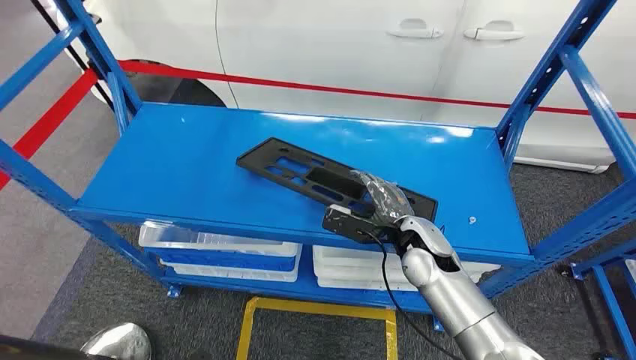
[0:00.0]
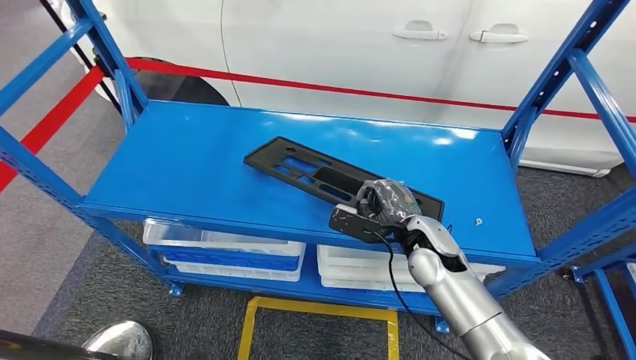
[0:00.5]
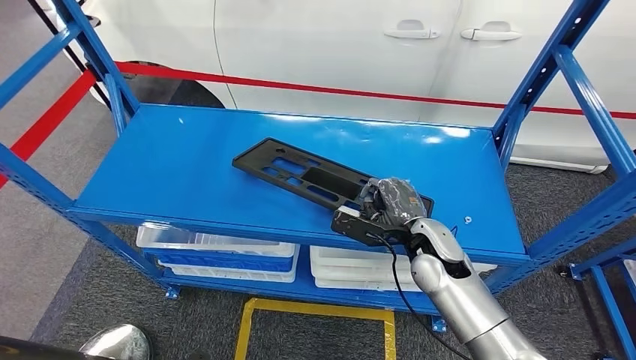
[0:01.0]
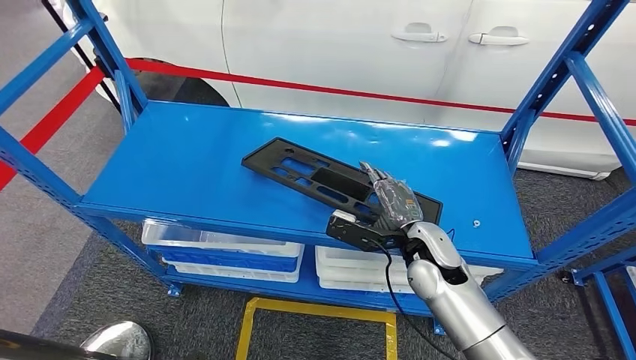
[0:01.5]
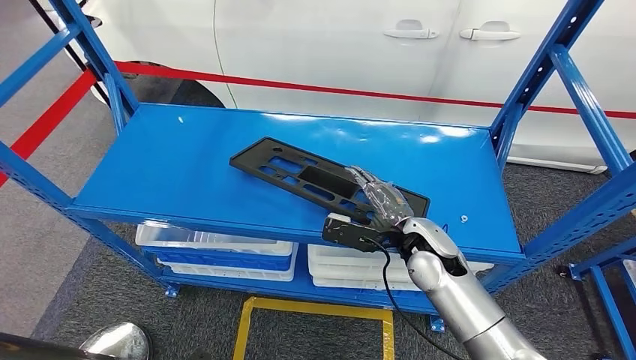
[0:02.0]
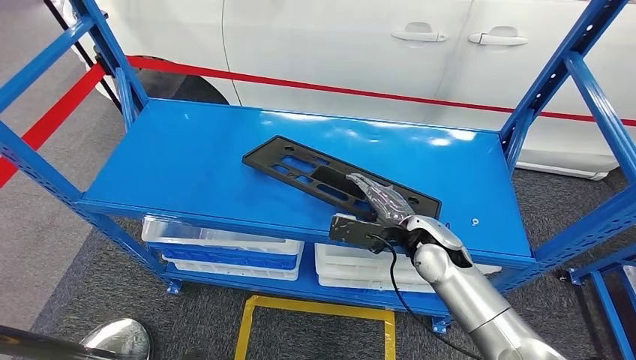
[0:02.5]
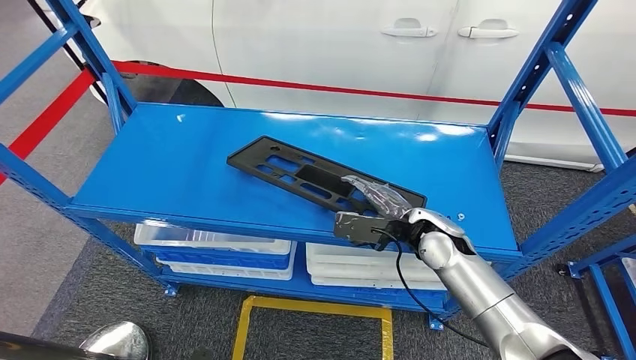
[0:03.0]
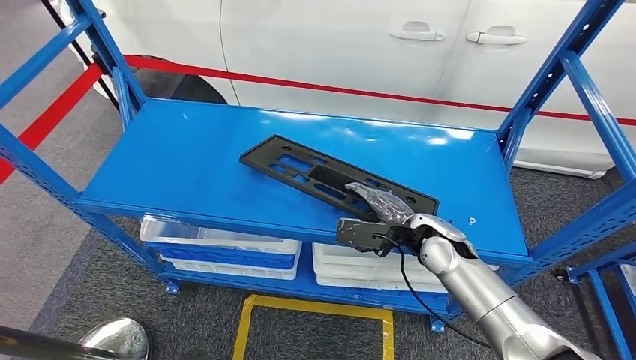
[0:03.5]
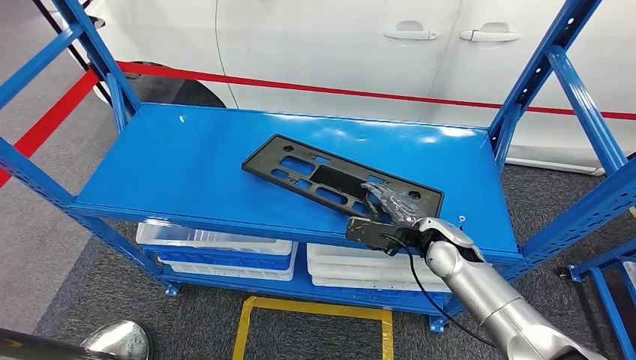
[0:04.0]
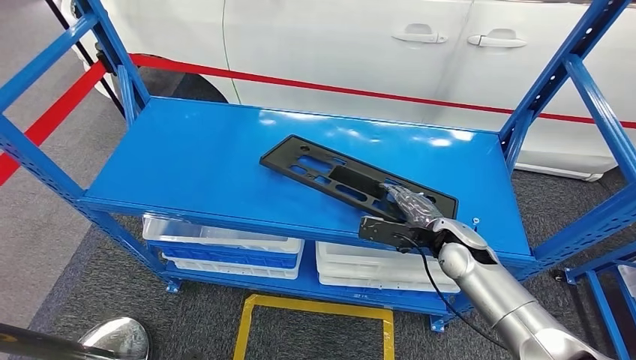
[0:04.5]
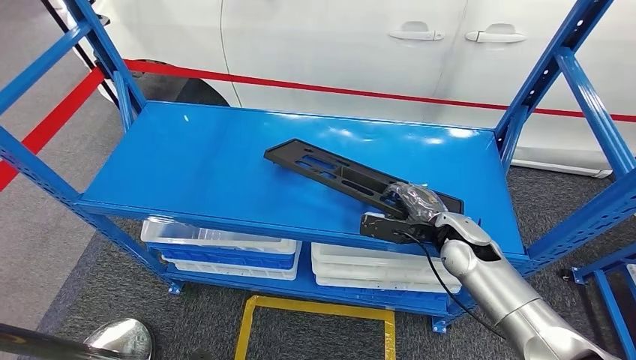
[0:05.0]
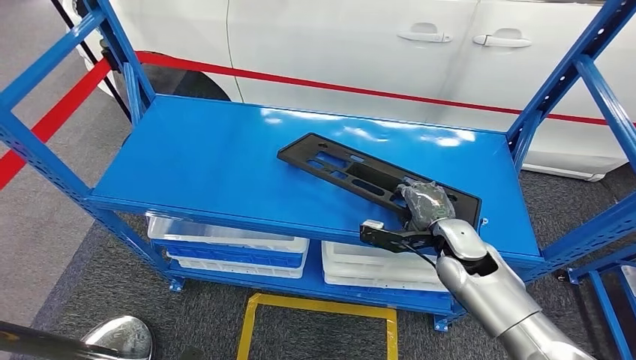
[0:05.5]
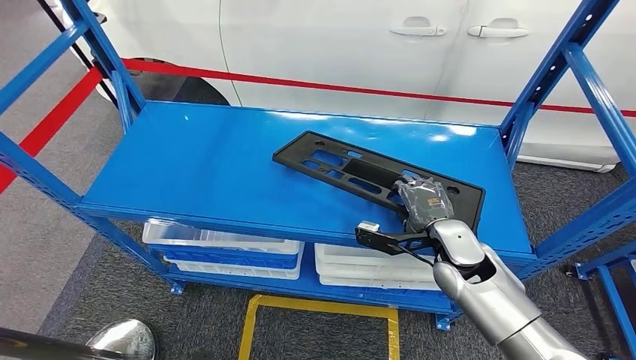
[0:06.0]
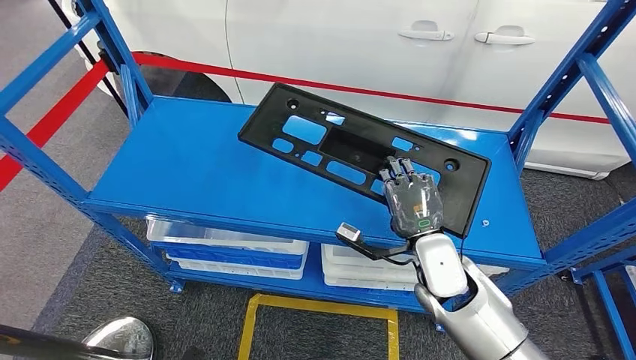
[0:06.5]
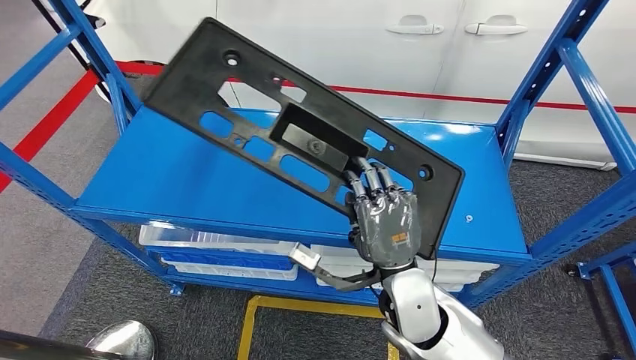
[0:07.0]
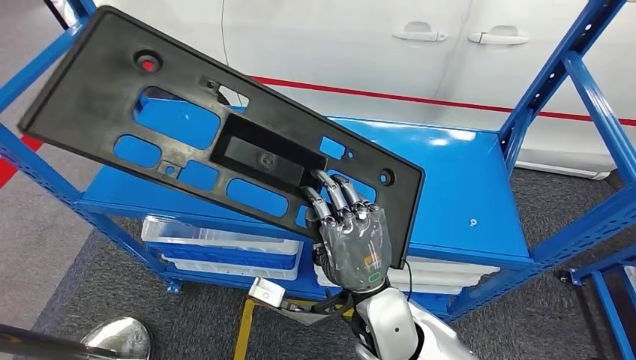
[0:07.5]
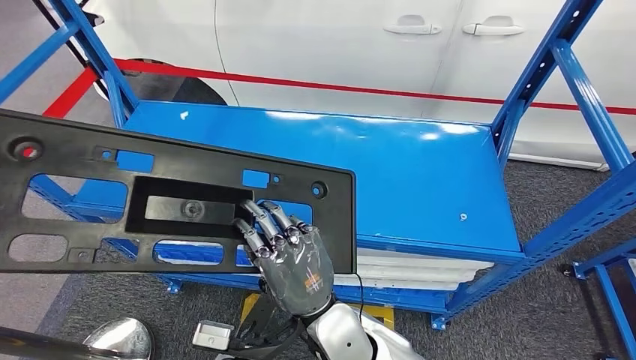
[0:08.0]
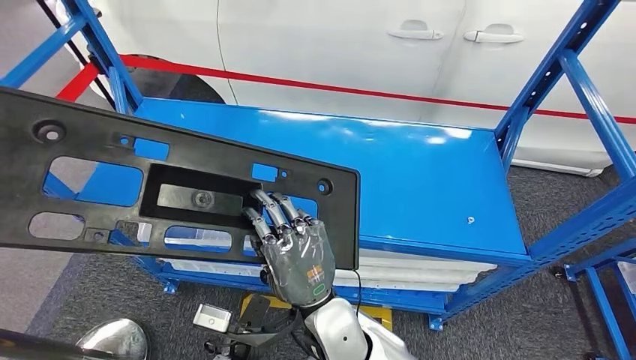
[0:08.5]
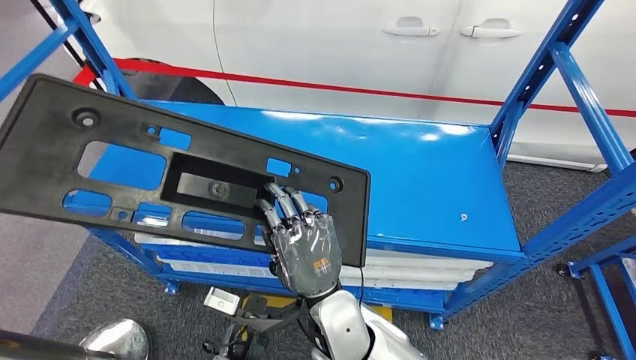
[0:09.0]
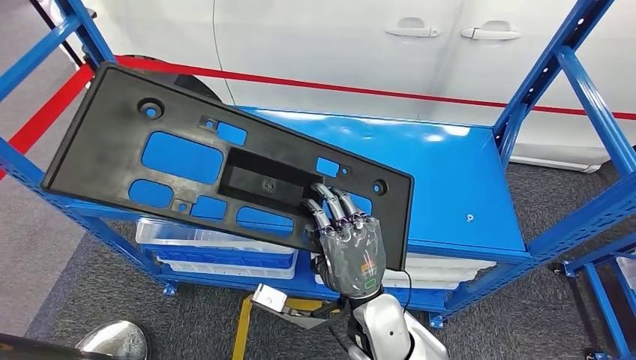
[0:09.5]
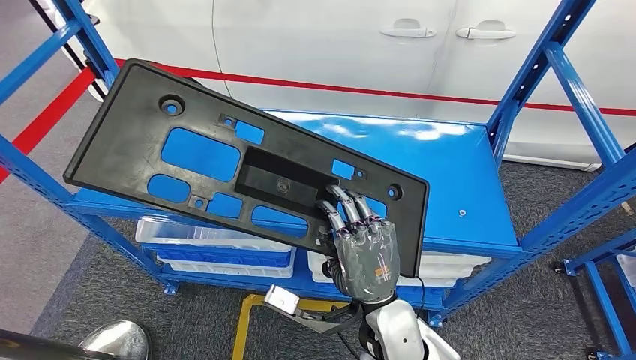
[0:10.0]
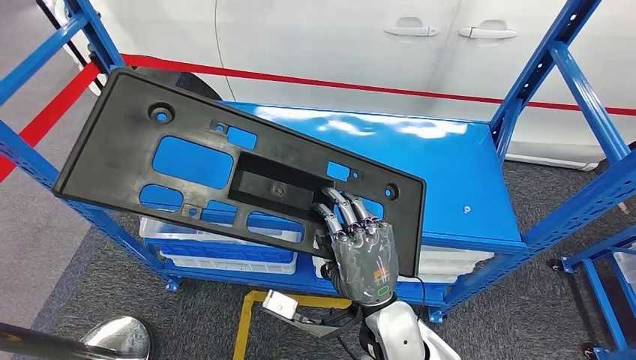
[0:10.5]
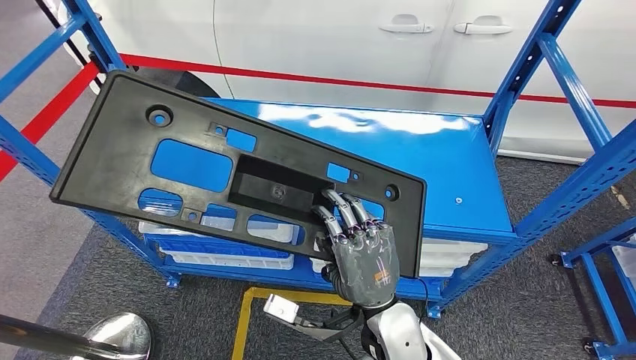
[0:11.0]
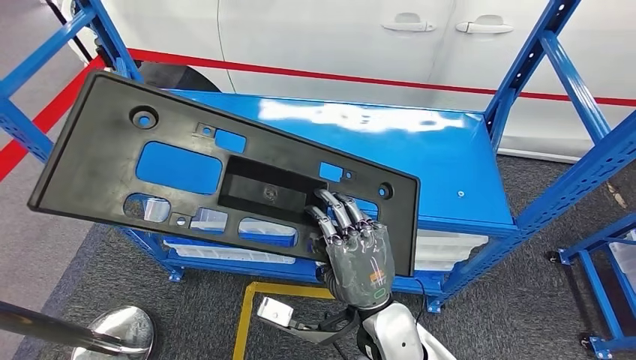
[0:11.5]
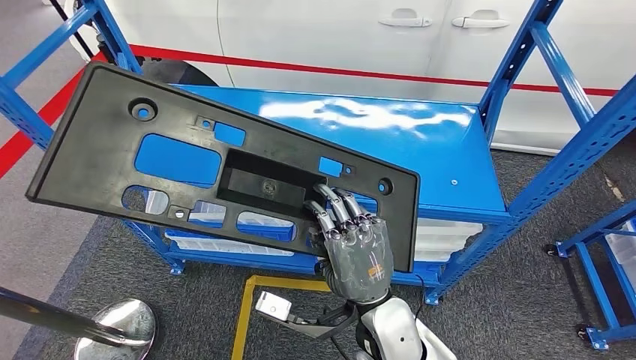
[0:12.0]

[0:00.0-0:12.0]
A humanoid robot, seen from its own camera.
Step, 0:00.0 to 0:06.5: Pick up the large material from the shelf.
0:02.0 to 0:04.0: The right hand is displaced to the right by roughly 5 cm.

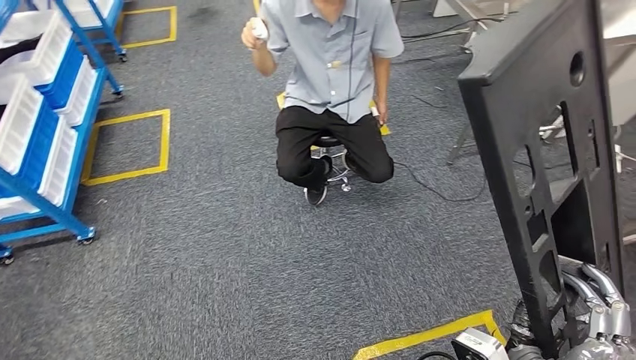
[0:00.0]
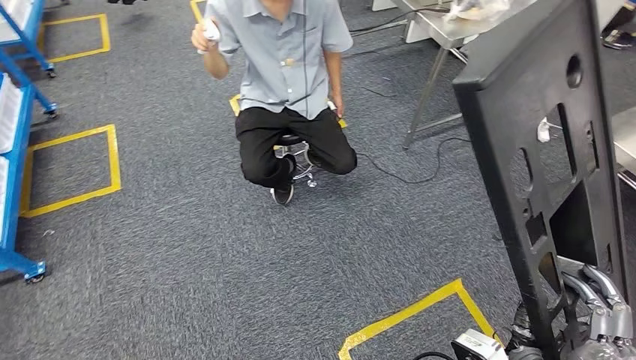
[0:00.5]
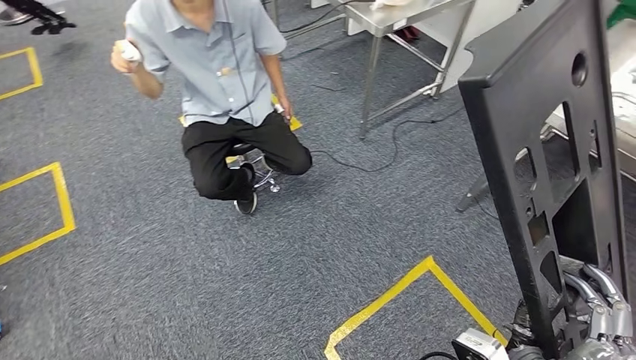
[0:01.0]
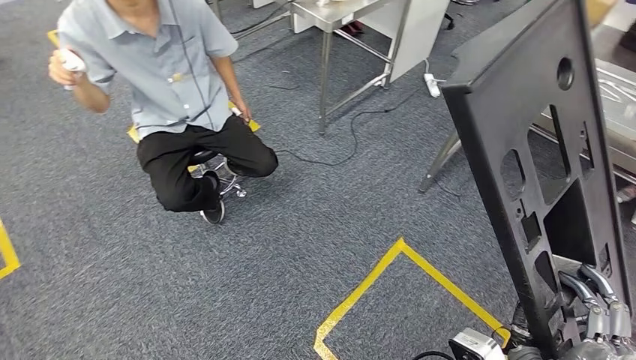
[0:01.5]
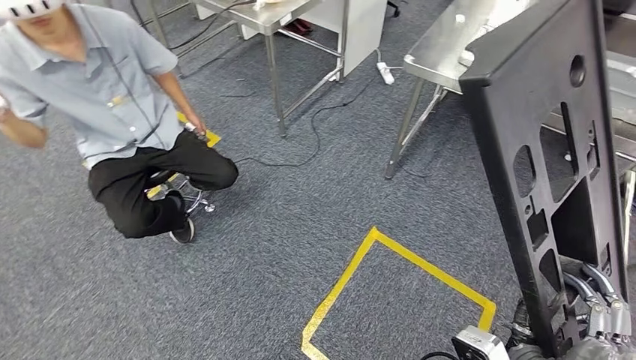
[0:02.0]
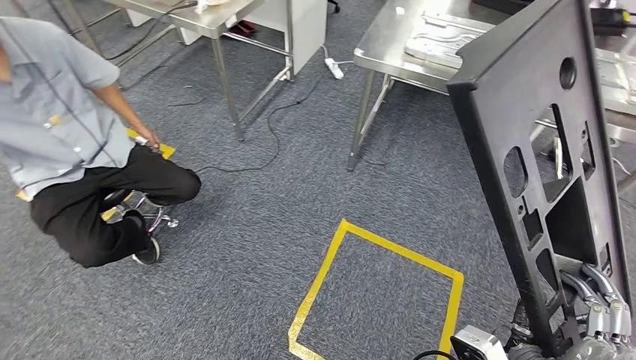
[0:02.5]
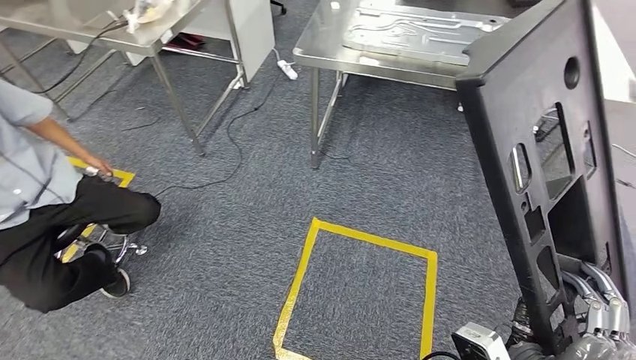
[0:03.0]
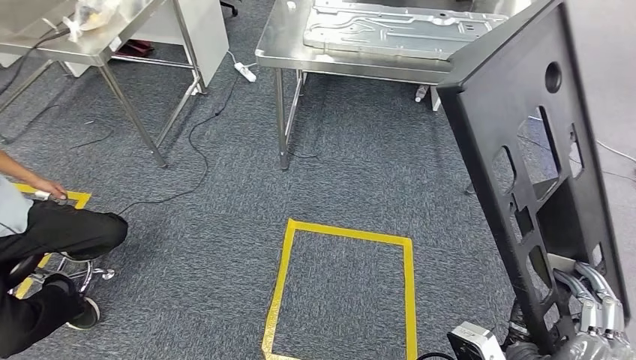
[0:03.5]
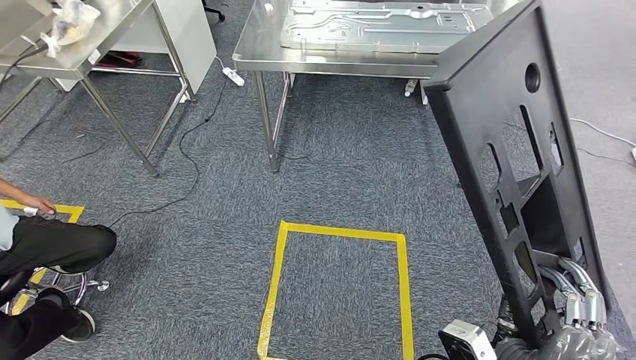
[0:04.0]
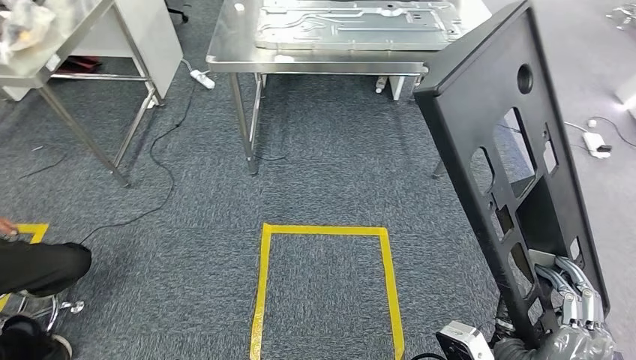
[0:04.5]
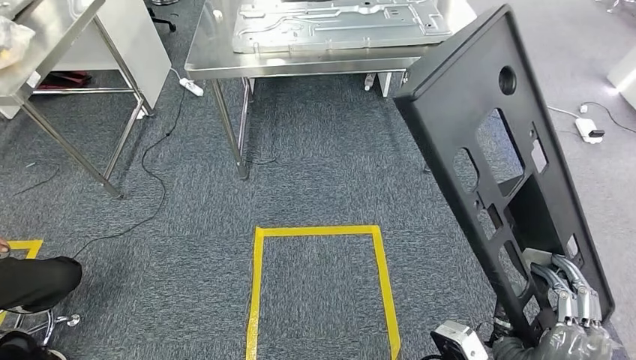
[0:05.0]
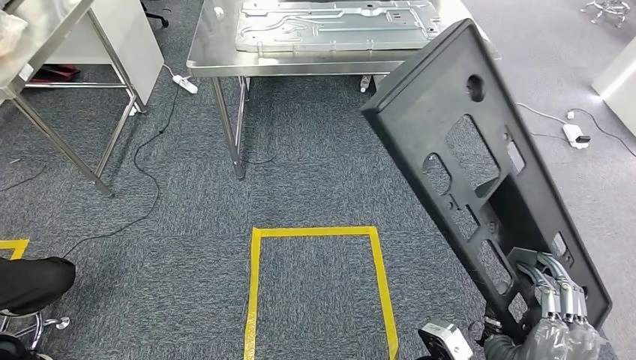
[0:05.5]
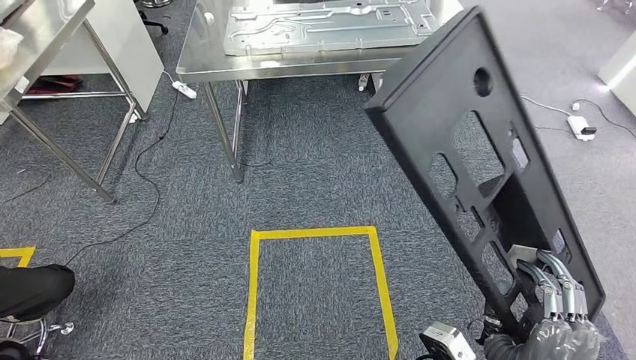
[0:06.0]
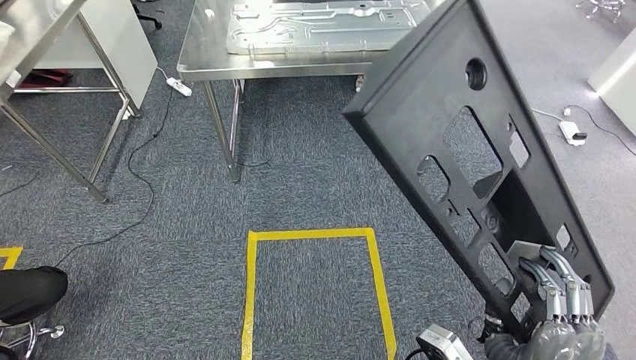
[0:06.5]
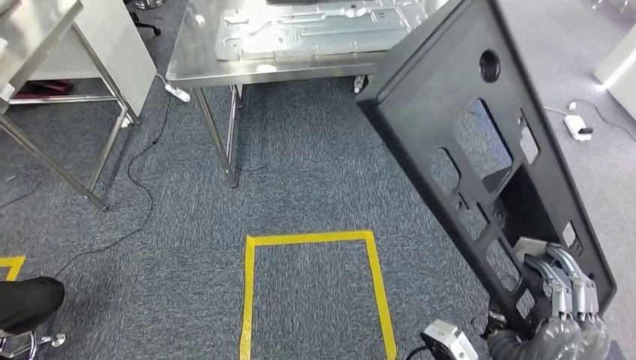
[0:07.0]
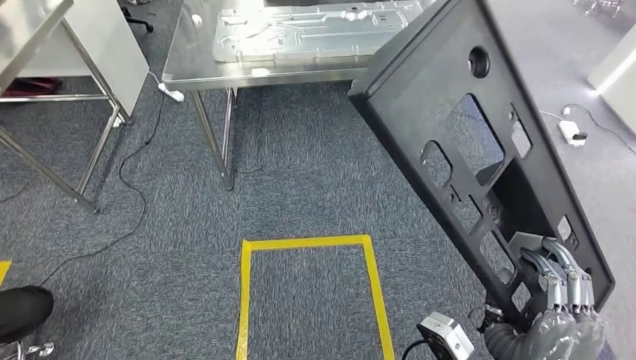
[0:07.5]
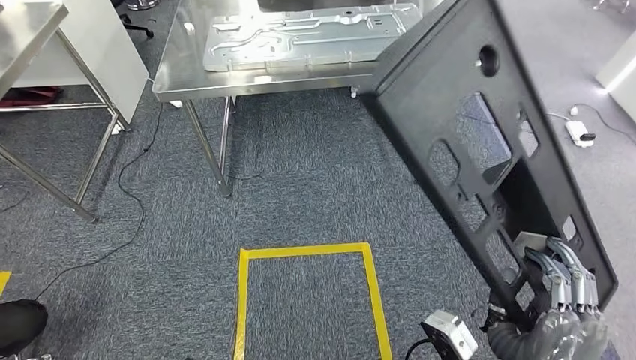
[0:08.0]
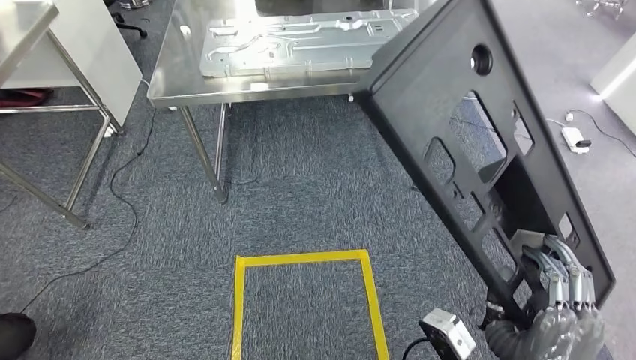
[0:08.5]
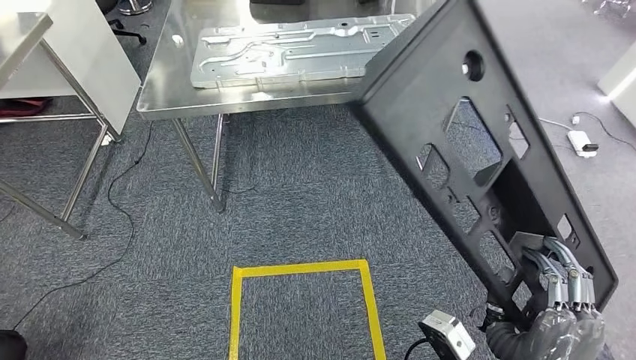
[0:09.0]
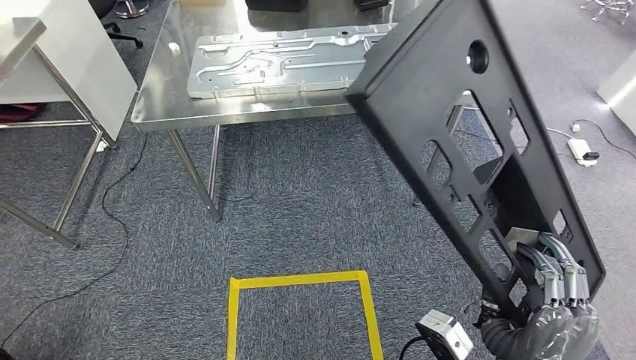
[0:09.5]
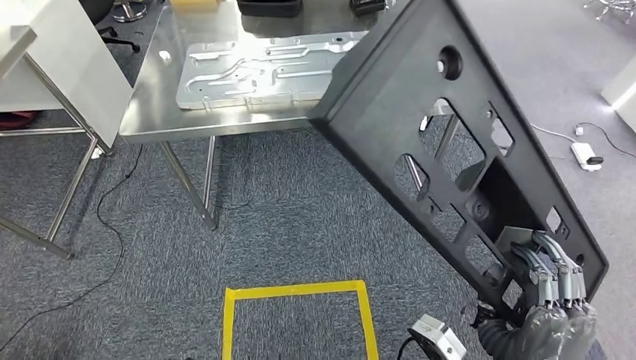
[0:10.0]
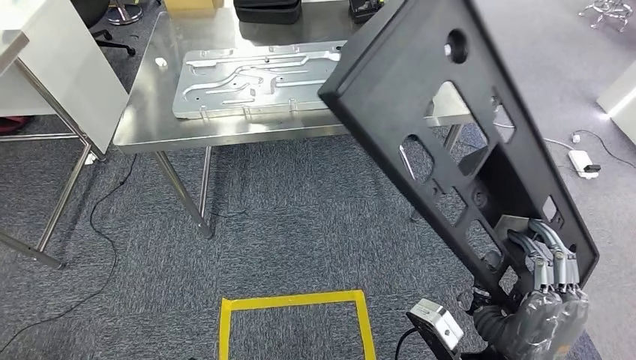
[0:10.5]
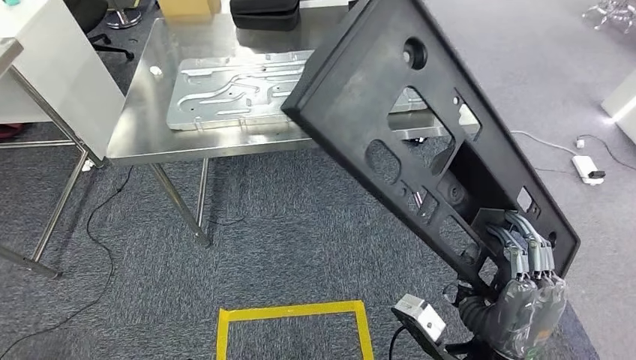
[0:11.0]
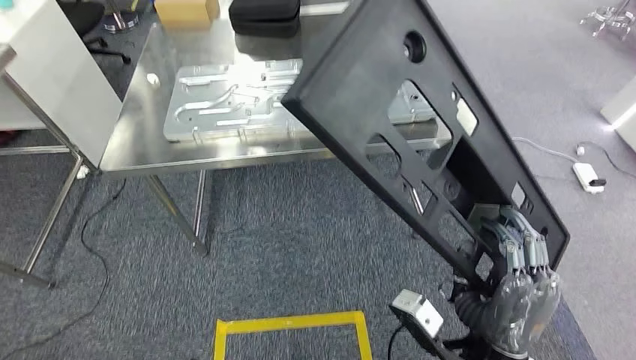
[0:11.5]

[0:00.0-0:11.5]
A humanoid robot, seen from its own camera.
Step, 0:00.0 to 0:10.0: Move the large material to the workbench.
